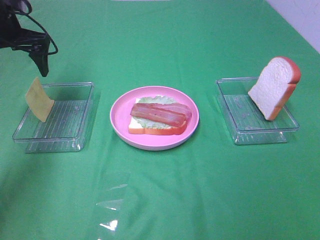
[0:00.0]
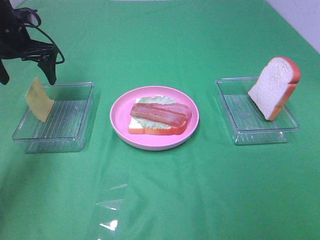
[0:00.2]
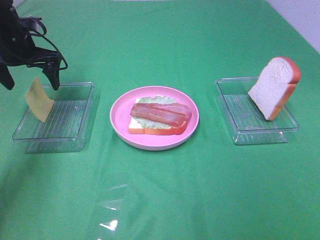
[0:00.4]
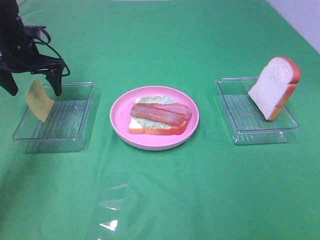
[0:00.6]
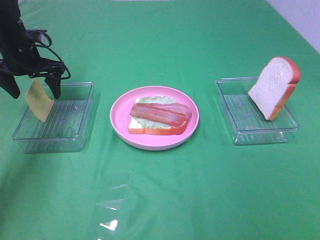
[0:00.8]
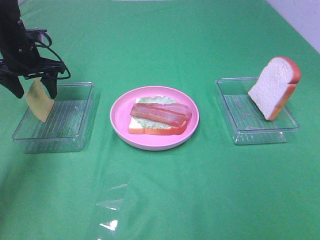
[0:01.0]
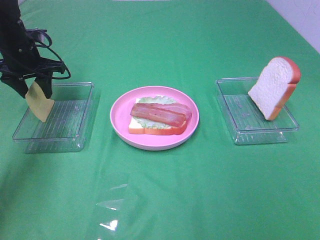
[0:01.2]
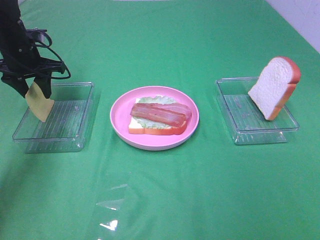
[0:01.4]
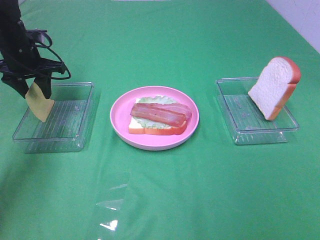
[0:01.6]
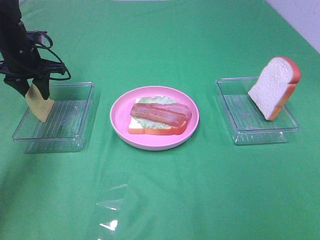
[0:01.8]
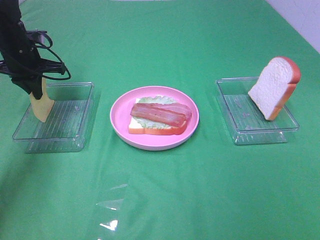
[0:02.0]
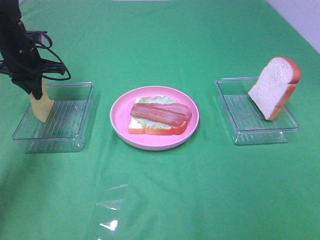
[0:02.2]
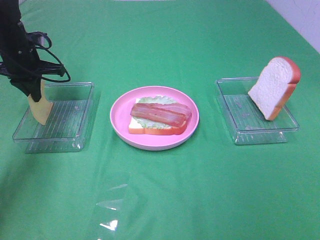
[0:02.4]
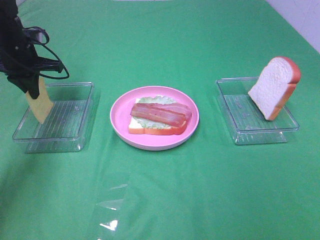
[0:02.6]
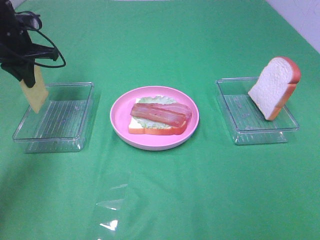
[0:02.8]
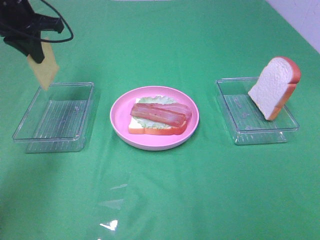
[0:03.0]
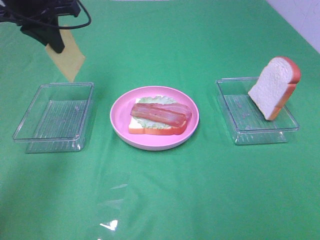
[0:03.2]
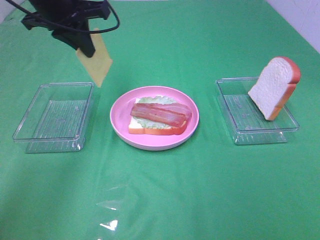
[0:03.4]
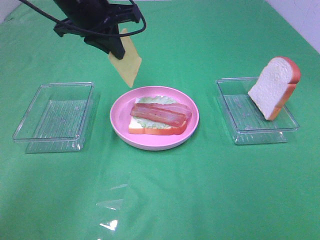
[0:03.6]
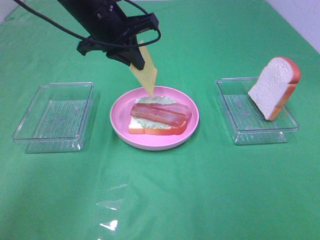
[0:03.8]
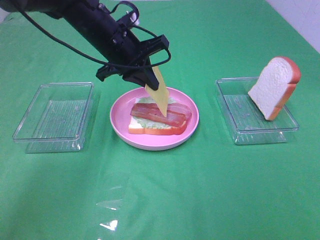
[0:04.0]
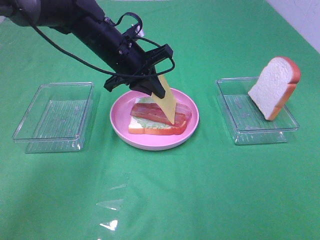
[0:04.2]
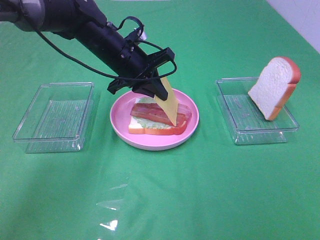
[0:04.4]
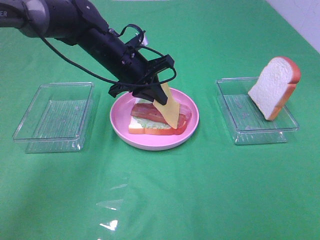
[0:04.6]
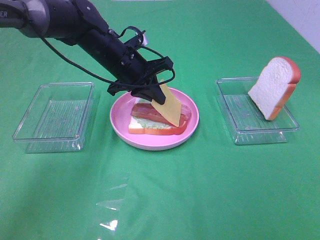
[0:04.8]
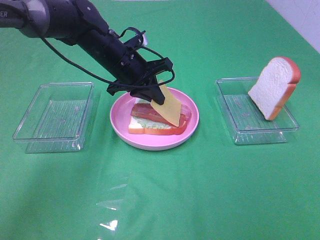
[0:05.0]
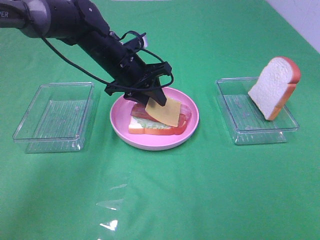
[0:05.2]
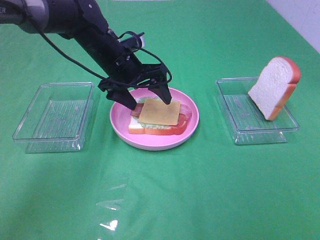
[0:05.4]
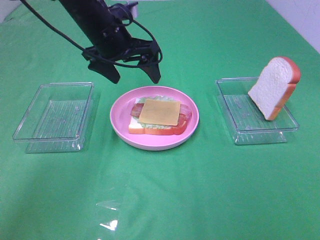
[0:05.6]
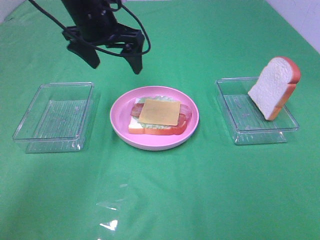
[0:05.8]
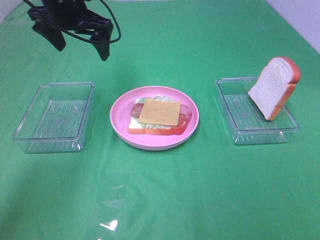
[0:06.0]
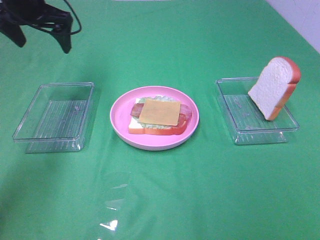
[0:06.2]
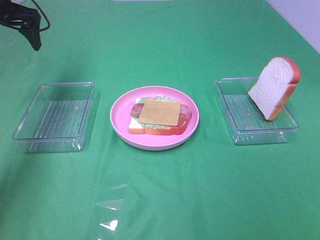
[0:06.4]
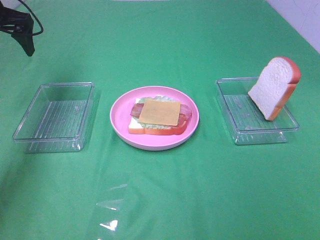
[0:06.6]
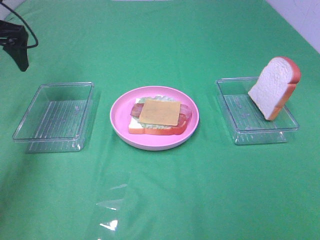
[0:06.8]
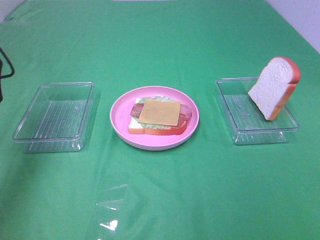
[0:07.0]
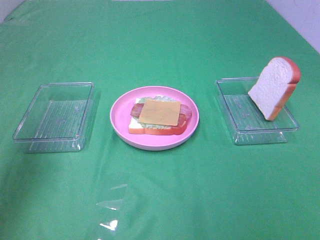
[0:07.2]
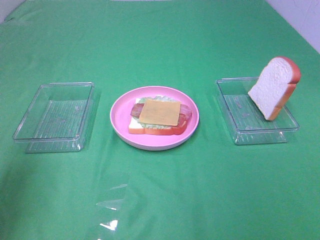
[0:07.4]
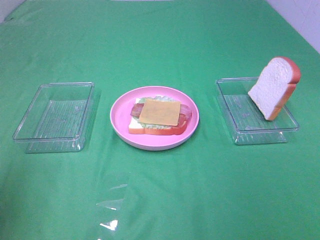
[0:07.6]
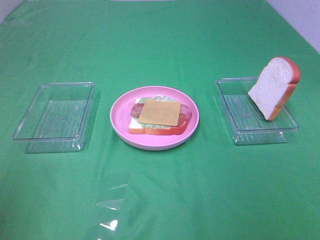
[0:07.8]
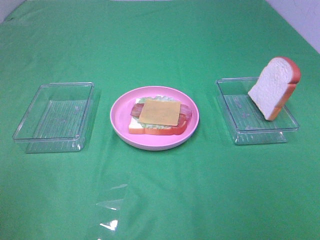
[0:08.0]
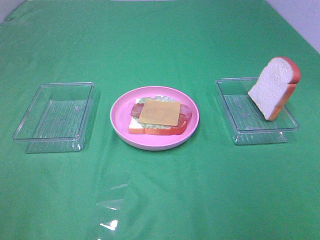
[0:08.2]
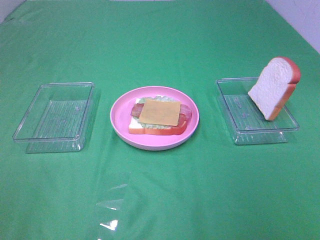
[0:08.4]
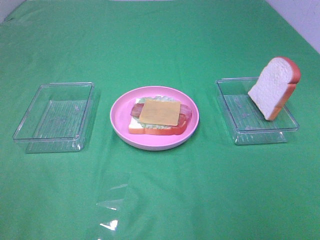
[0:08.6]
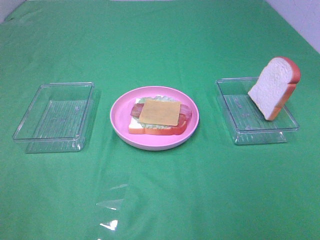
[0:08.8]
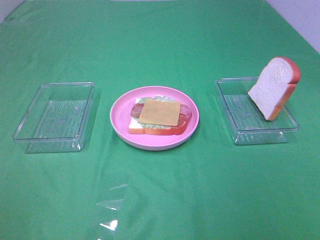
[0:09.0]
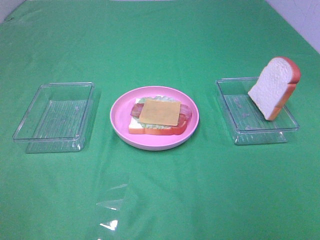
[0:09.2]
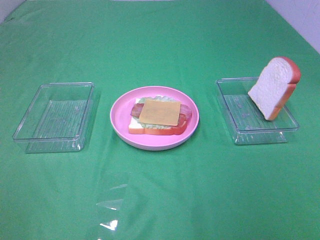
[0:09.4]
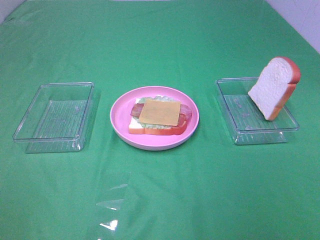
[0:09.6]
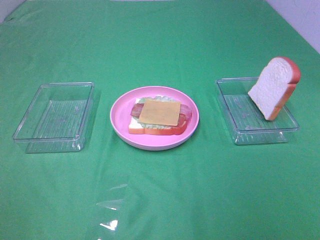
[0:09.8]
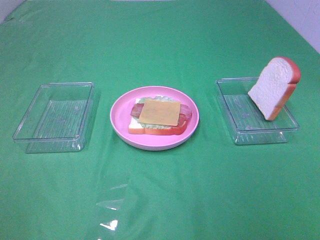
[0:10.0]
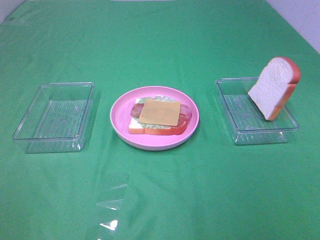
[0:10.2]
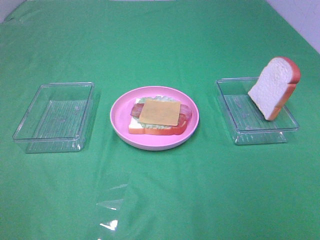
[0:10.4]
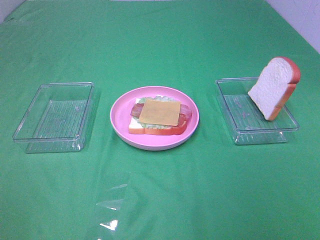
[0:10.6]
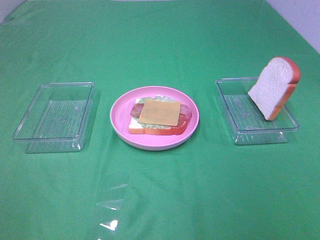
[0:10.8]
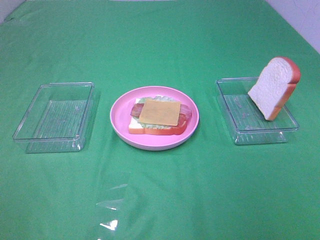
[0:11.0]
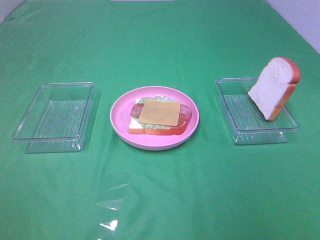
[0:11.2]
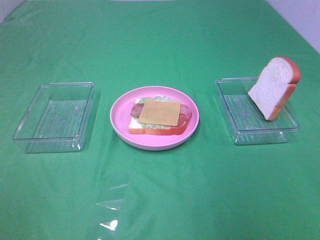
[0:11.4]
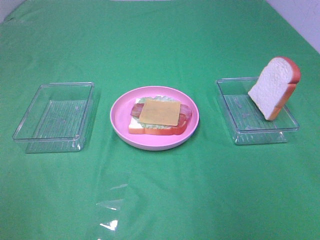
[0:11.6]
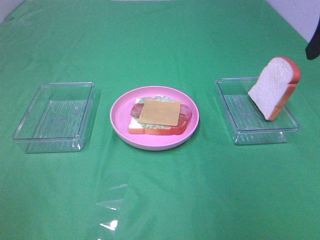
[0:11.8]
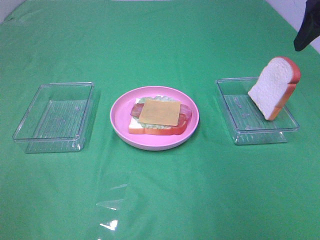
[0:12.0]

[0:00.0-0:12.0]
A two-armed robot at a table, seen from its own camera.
Task of the whole recording: Make sandwiches.
Step, 0:00.0 to 0:02.0: Left hand:grab the cheese slice.
Step, 0:02.2 to 0:05.2: Left hand:place the cheese slice on top of the bacon.
0:00.0 to 0:01.6: The left gripper goes about 5 cm downward, and closes its fingers.
0:01.6 to 0:03.0: The left gripper shifts about 10 cm upward, and closes.
0:03.0 to 0:04.4: The left gripper is displaced to the right and downward by some 20 cm.
0:04.4 to 0:06.0: The left gripper goes about 15 cm upward and to the left, and opens up.
0:06.0 to 0:07.6: The left gripper goes about 35 cm backward and to the left.
0:09.0 to 0:10.4: Both grippers stay about where they are.
0:10.4 to 0:12.0: The right gripper moves forward, approximately 30 cm.

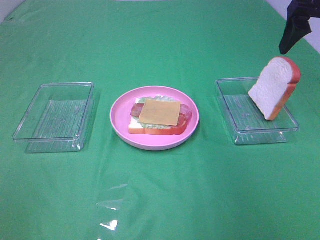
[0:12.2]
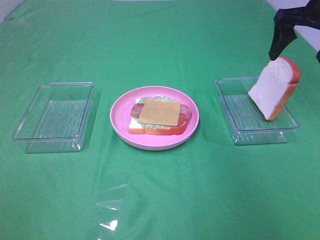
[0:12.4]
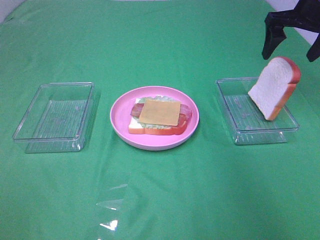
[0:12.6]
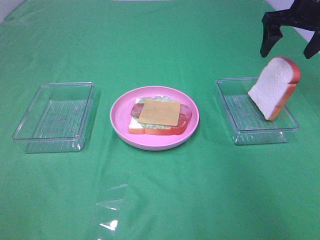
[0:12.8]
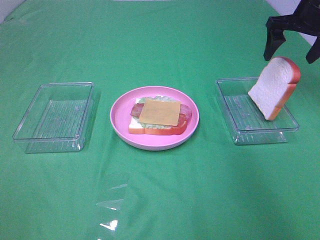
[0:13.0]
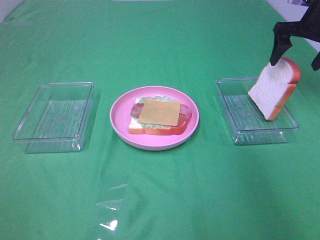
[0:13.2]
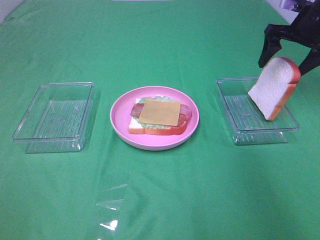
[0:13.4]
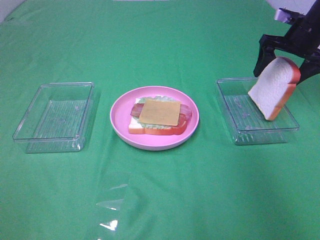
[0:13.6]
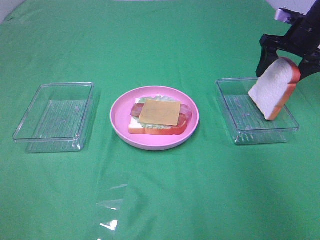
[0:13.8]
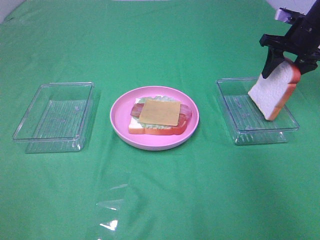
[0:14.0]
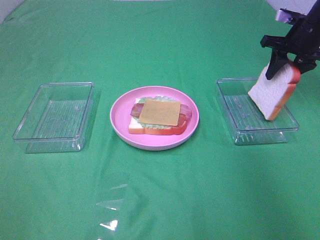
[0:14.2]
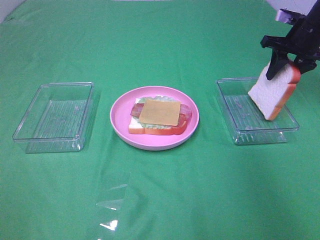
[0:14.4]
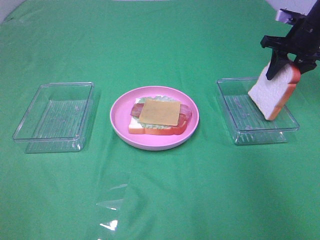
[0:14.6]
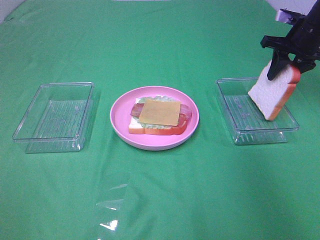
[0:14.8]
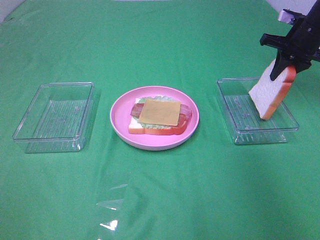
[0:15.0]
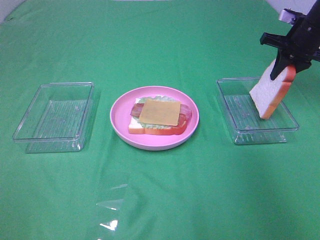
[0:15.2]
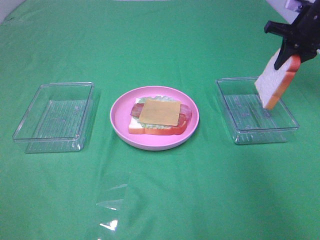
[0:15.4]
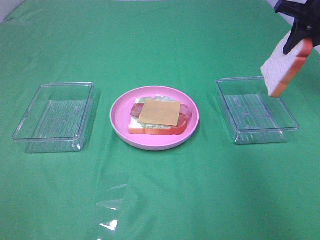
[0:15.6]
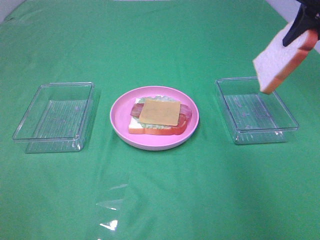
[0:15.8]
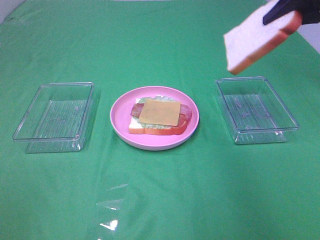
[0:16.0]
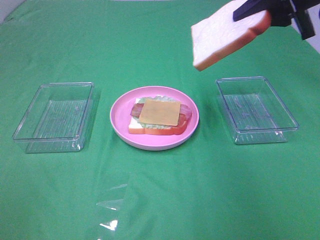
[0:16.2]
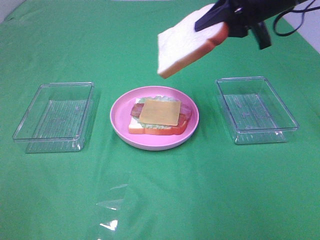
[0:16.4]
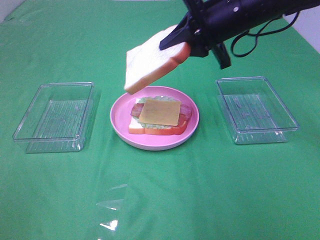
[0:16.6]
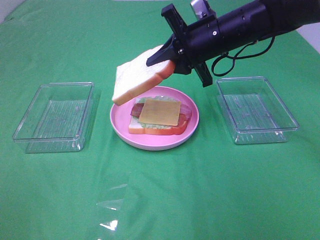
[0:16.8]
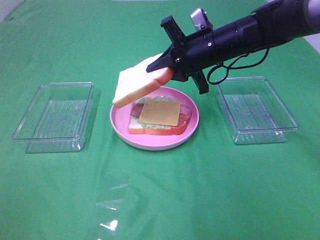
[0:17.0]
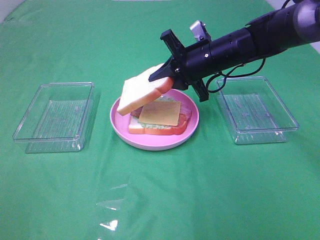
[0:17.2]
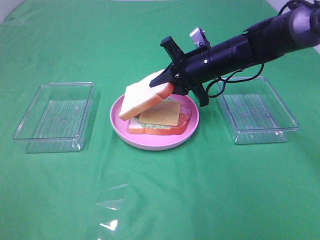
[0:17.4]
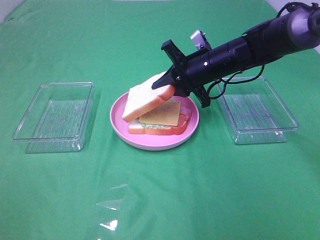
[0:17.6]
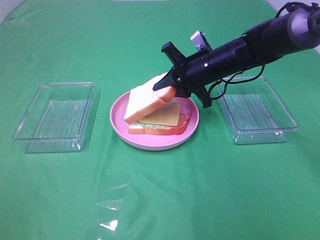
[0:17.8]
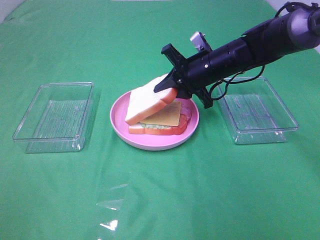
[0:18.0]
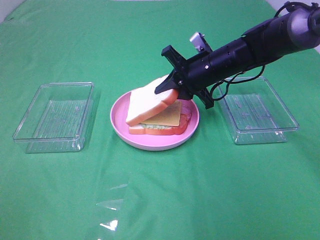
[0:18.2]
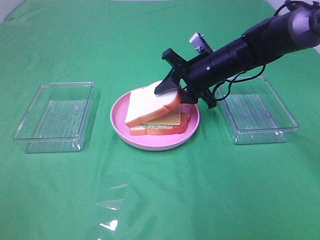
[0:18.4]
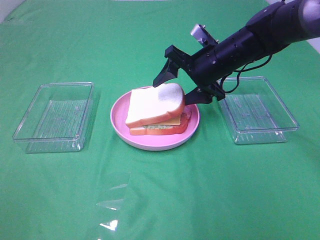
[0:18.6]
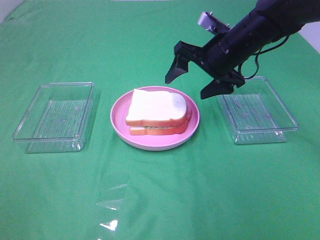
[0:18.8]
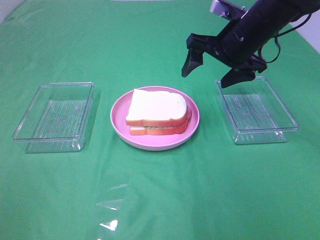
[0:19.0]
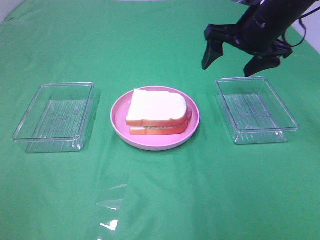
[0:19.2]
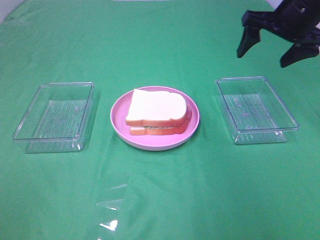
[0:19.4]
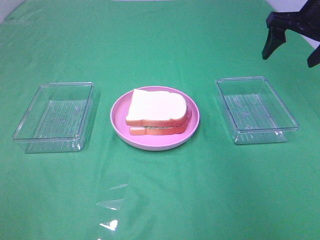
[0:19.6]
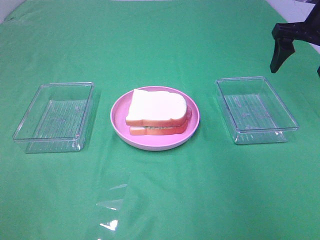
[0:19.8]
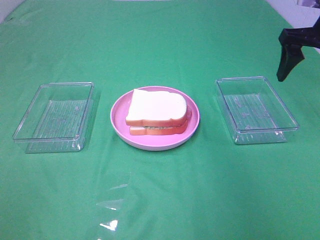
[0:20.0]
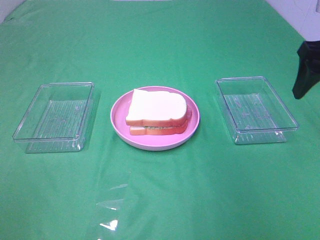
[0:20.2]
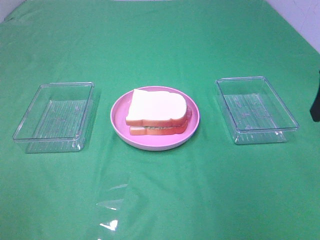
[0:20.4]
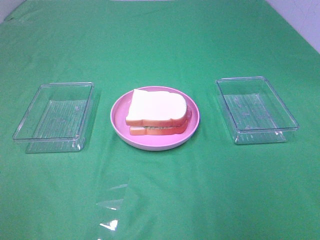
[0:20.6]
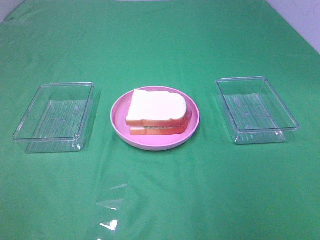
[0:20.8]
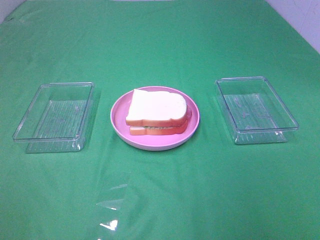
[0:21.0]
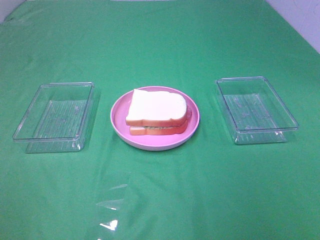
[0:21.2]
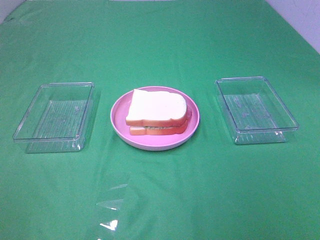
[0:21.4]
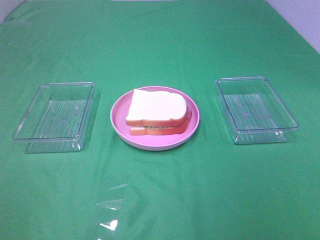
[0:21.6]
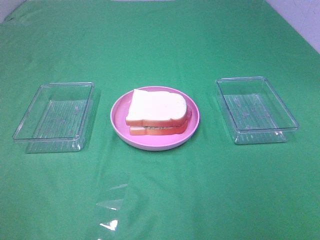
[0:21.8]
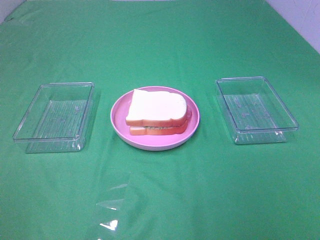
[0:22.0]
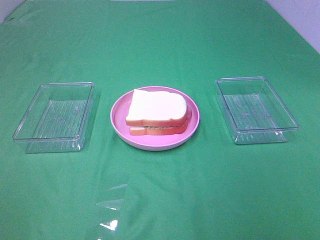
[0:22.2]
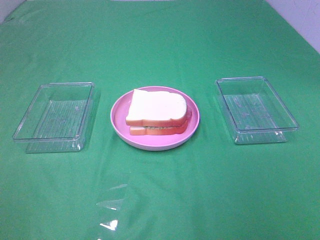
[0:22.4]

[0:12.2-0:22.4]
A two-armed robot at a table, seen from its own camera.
Task of the whole recording: Make sandwiches.
Step, 0:12.2 to 0:15.0: Right hand:grab the bread slice.
Step, 0:15.2 to 0:18.6: Right hand:place the bread slice on the cheese slice.
0:12.2 to 0:13.6: The right gripper shifts some 15 cm downward and forward.
0:13.6 to 0:15.2: The right gripper closes its fingers.
0:15.2 to 0:16.6: The right gripper goes about 20 cm to the left and backward.
0:16.6 to 0:18.0: The right gripper goes roughly 10 cm downward.
0:18.0 to 0:19.4: The right gripper goes roughly 20 cm upward and to the right, and opens.
0:19.4 to 0:21.0: The right gripper goes roughly 35 cm backward.
